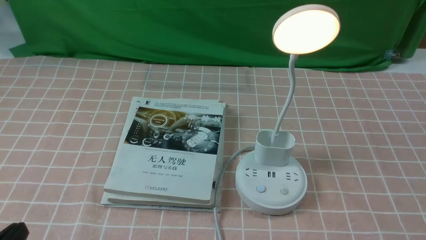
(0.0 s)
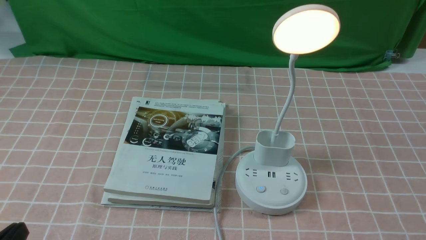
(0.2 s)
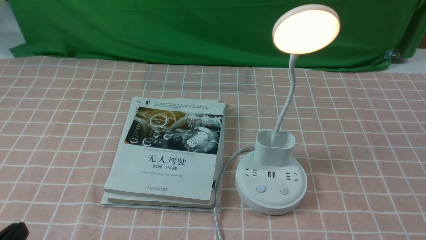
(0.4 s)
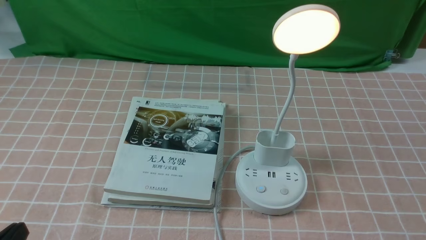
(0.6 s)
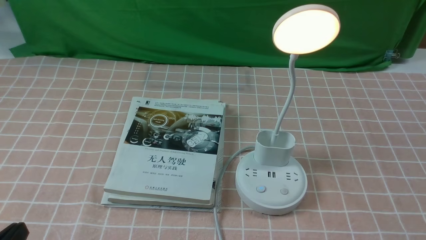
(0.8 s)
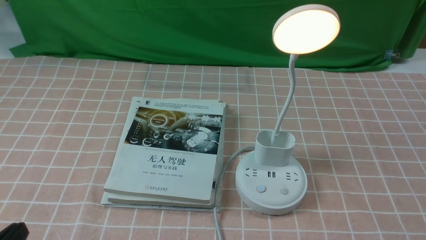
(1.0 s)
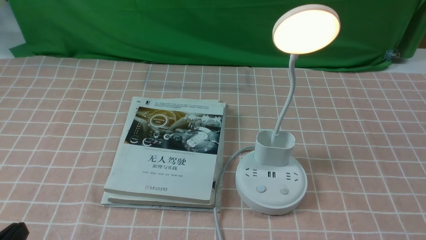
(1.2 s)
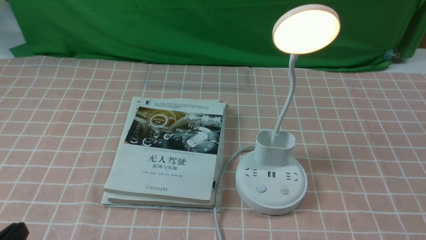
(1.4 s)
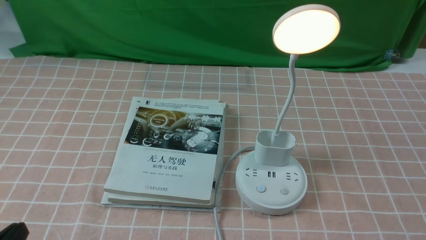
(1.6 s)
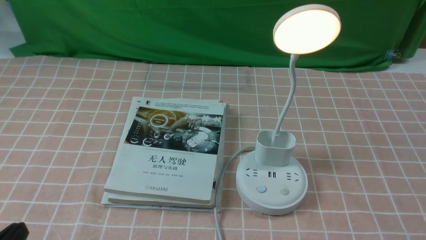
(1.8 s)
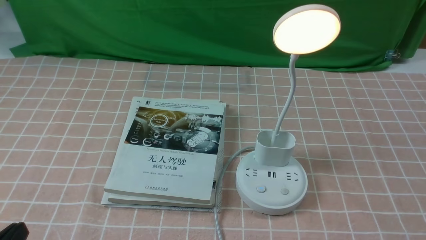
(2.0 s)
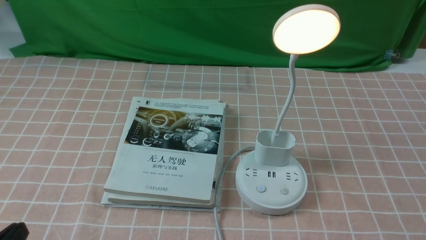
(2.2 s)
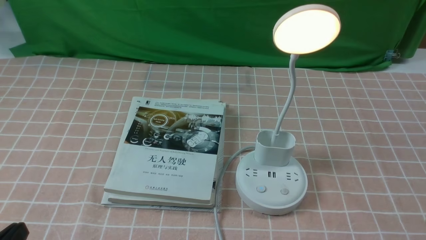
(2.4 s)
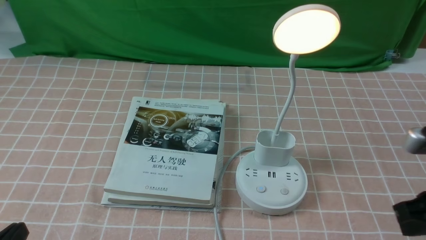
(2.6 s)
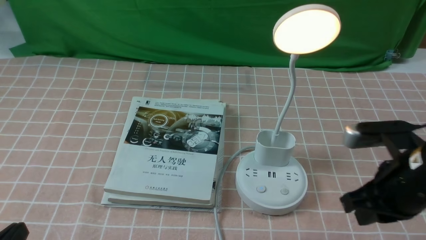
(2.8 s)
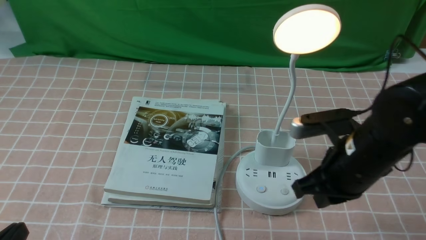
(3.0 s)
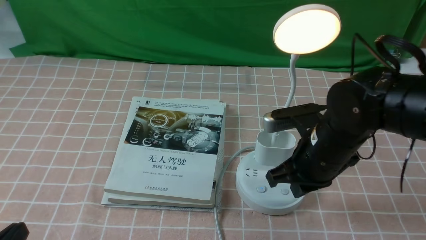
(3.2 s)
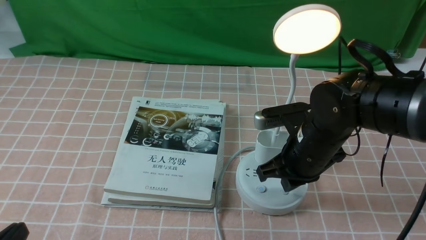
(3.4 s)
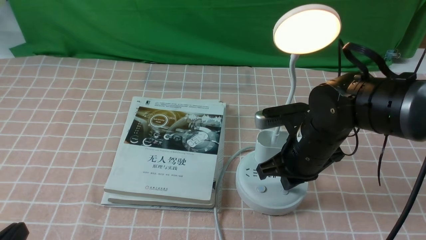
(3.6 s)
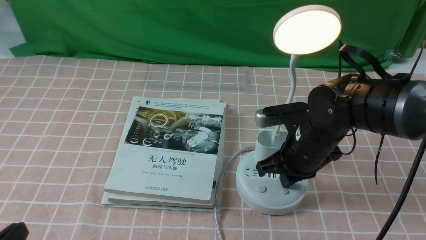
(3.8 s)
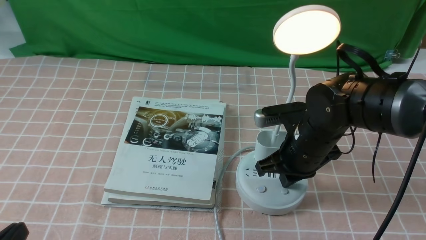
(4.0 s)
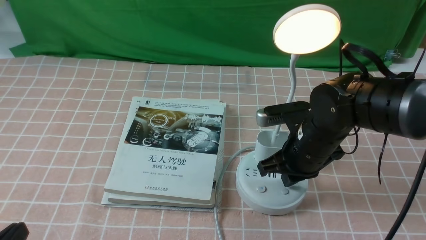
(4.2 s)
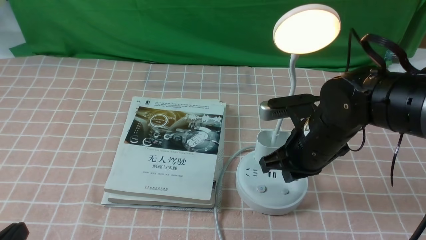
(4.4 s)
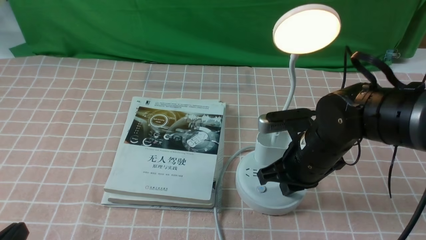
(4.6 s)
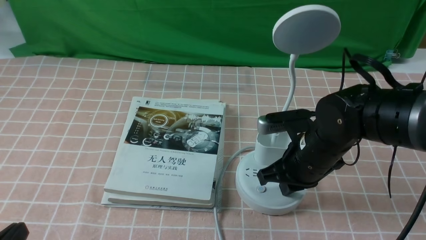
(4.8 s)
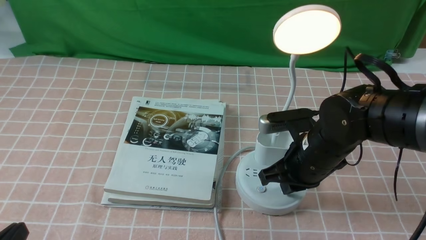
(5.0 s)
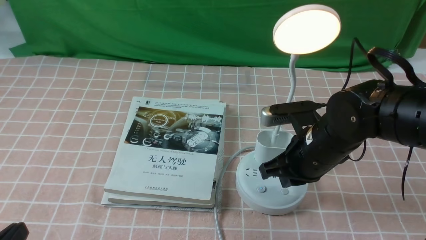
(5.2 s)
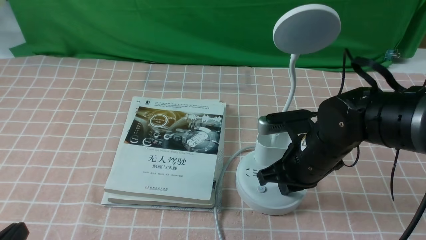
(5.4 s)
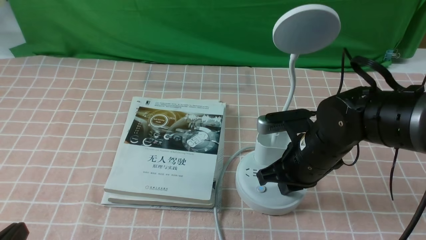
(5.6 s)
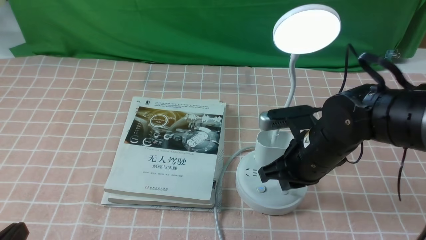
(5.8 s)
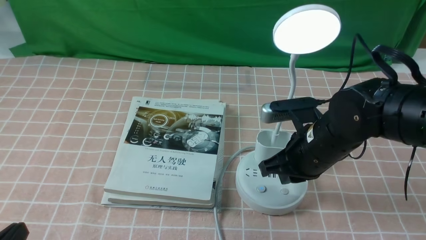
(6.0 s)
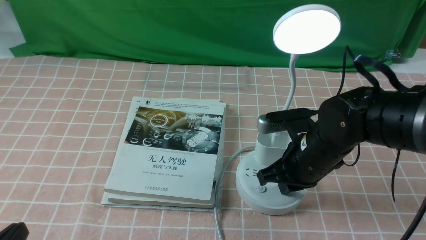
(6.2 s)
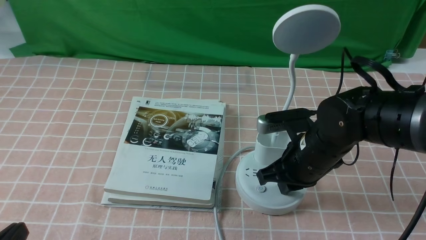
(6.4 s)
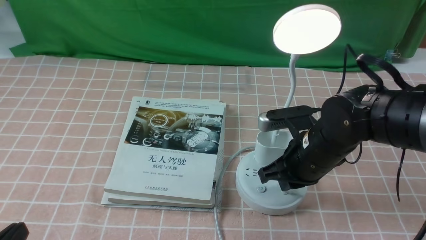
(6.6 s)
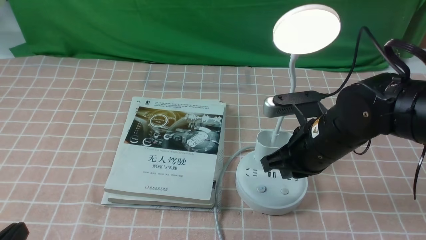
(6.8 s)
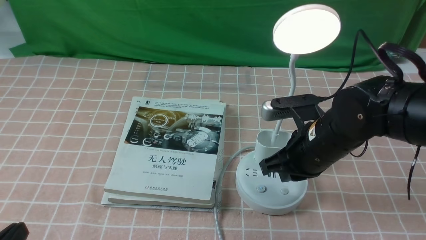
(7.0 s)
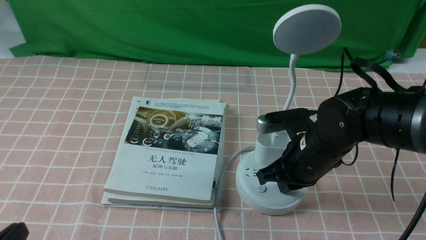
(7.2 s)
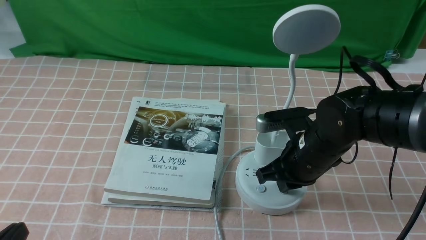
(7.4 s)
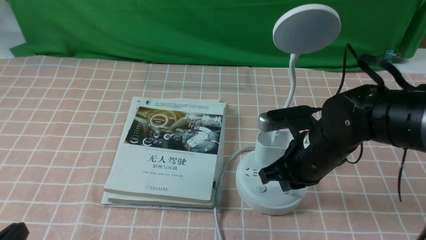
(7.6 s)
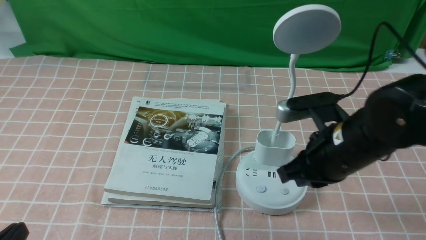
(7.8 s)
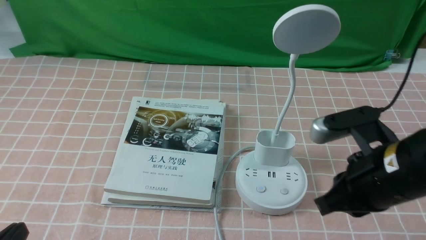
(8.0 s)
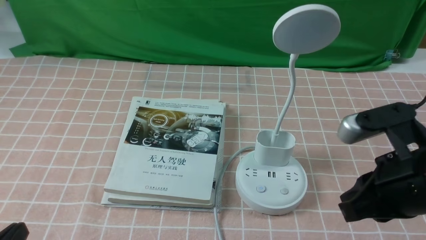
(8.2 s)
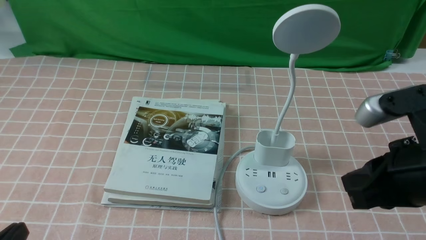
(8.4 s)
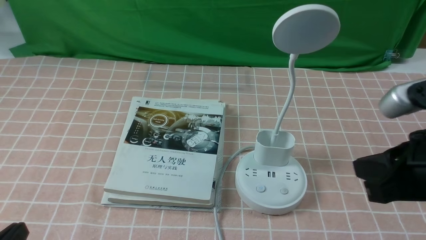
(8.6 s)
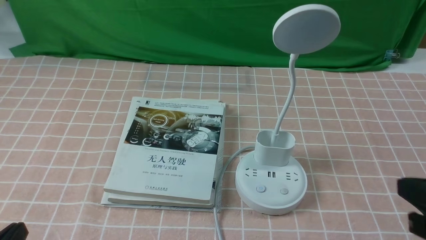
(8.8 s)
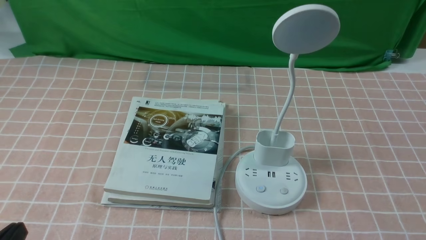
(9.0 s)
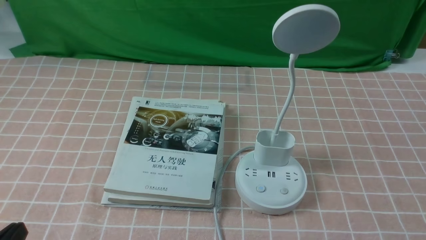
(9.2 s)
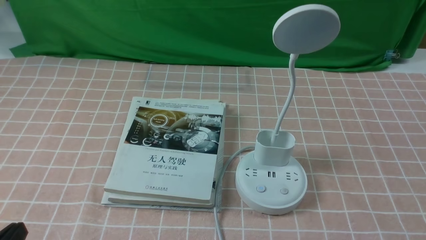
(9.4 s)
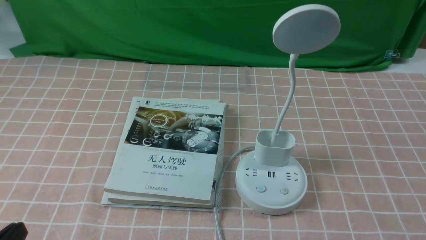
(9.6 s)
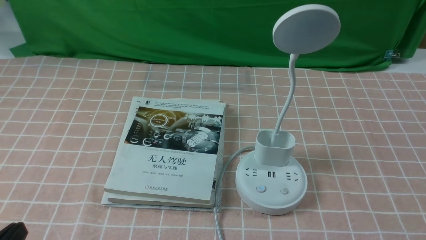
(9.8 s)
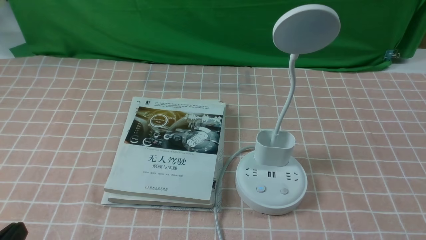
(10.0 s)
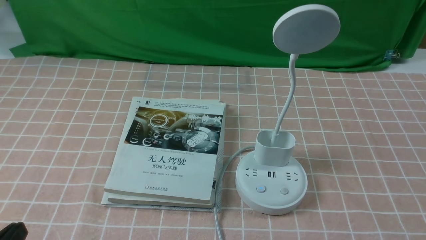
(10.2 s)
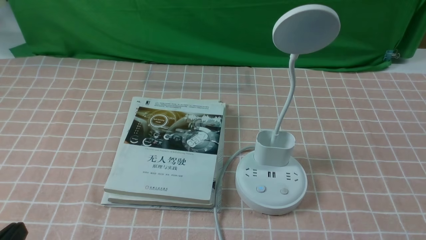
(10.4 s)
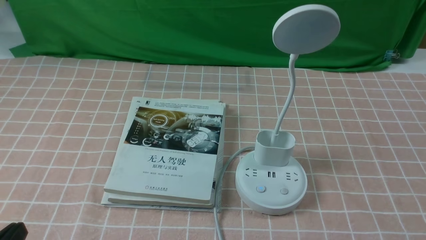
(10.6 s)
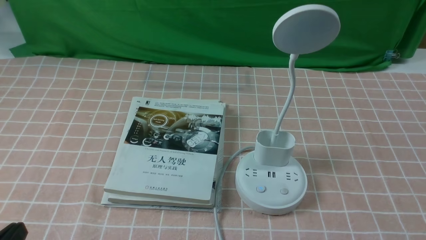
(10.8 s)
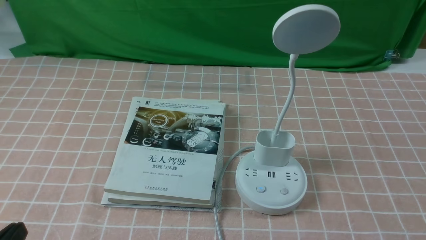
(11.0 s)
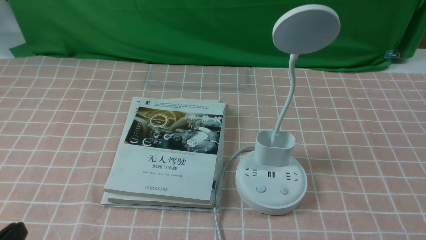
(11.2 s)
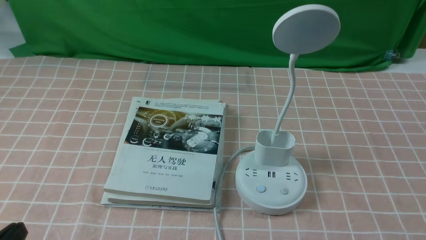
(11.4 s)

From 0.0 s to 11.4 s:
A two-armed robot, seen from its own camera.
Task of the whole recording: turn off the table lamp on the pink coffee tablecloth by hand.
Step, from 0.0 s to 7.6 s: use the right arm to press the button switch on the lamp holder.
From 1.4 s to 2.8 s: The right gripper shifts some 20 cm forward and to the left, and closes up.
From 2.8 s to 4.2 s: The right gripper moves to the left, forward and downward, about 15 cm.
From 4.2 s to 7.2 s: The grippers make only small movements.
From 7.2 s to 8.6 s: The right gripper goes roughly 20 cm backward, upward and to the right.
From 8.6 s to 10.0 s: The right gripper travels downward, backward and to the right by about 20 cm.

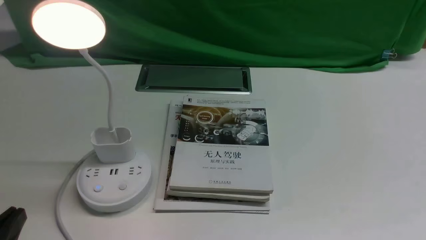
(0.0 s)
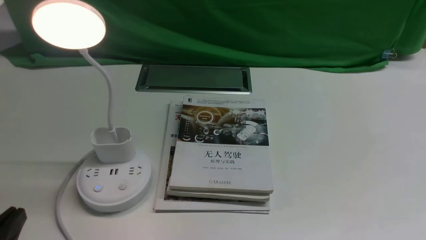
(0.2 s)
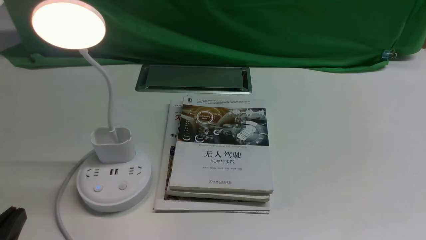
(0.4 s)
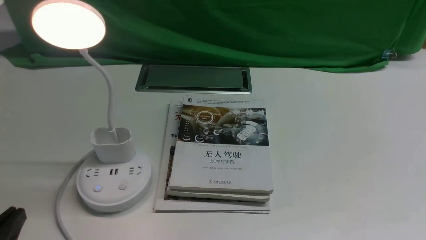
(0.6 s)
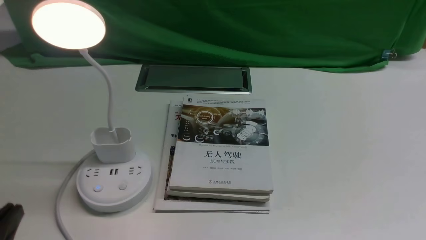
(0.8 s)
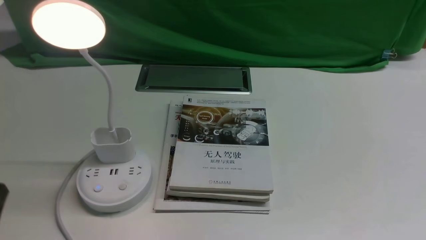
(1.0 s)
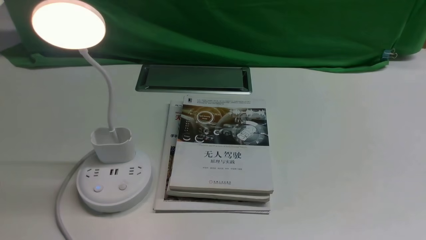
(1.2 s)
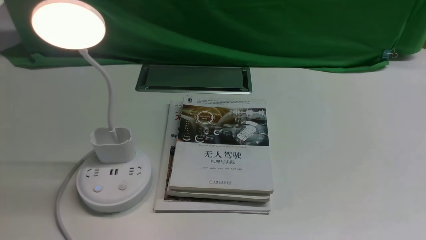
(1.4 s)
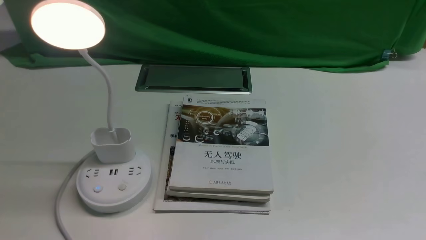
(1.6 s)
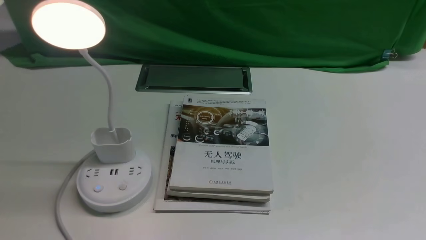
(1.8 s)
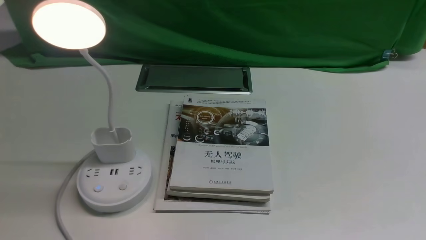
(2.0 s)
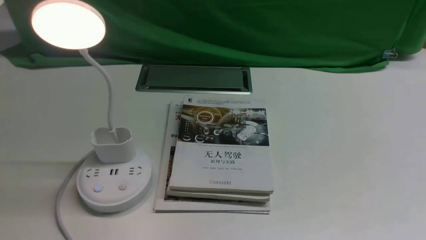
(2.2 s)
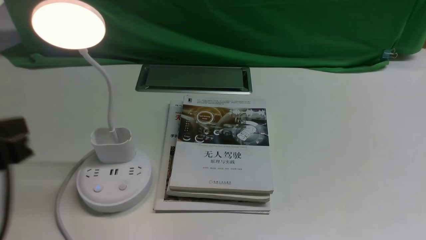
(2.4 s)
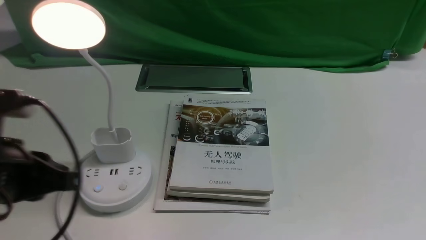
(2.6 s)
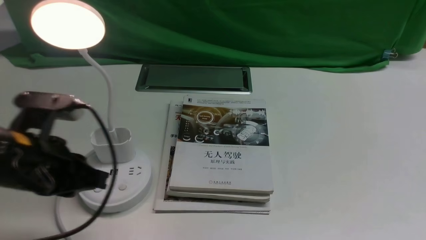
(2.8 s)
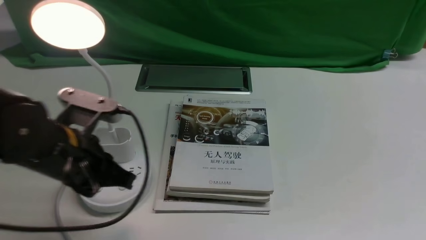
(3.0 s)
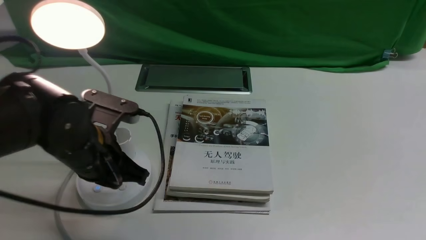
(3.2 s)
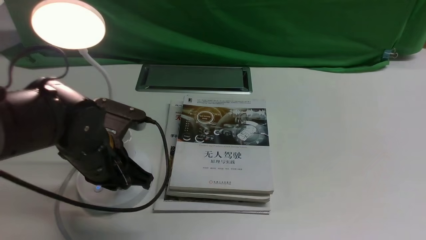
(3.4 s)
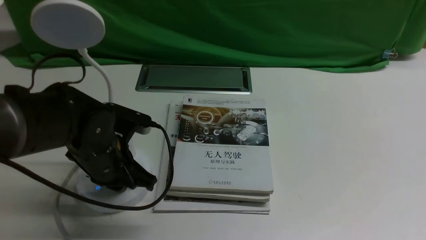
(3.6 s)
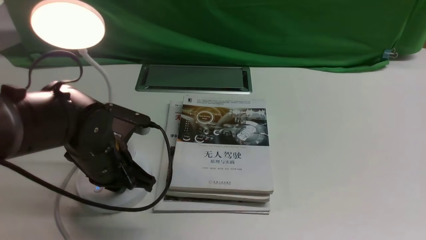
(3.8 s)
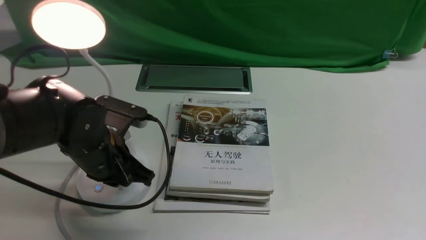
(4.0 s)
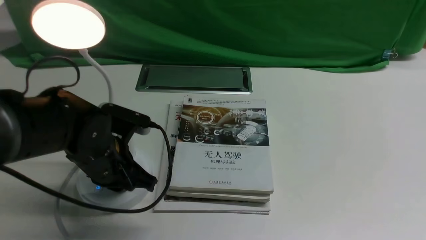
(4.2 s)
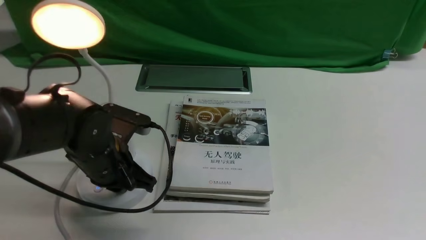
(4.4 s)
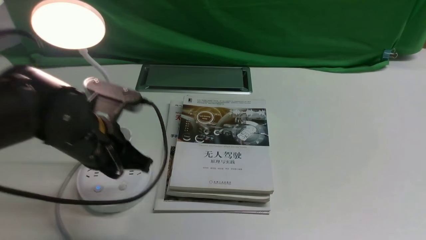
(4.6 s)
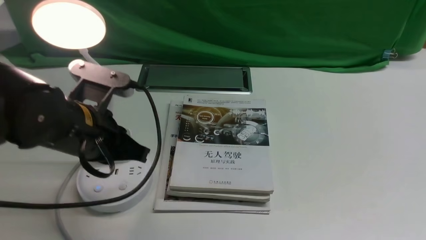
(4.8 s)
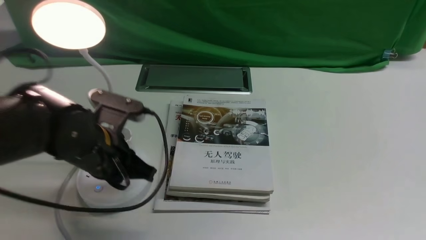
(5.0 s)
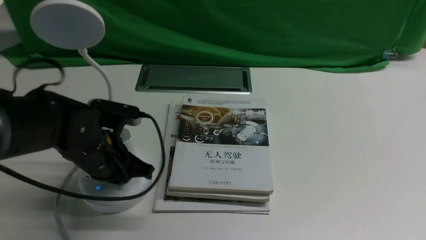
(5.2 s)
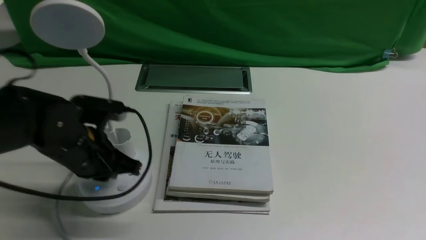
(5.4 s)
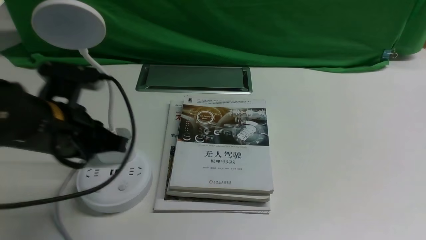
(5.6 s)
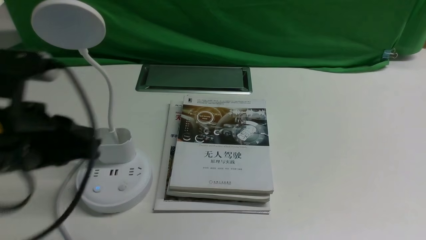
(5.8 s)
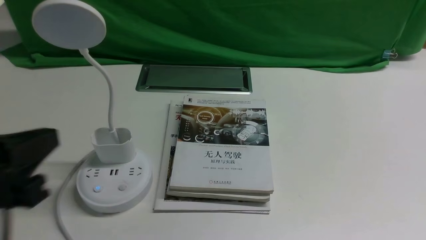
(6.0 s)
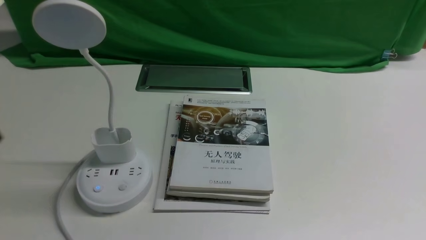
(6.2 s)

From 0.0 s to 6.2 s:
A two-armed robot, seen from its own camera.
Task of the whole recording: turn off the desk lamp on the white desktop by hand.
Step, from 0.0 s to 5.4 s: use the left arm to press the button switch on the lamp holder.
From 0.0 s to 1.6 s: The left gripper is displaced upward by roughly 10 cm.
From 1.6 s to 3.2 s: The left gripper travels forward and to the right by approximately 25 cm.
From 3.2 s to 4.6 s: There are only small adjustments of the grippers.
From 4.6 s to 6.2 s: The left gripper shifts roughly 25 cm backward and upward.
